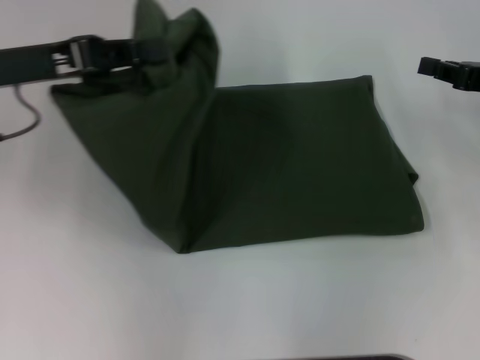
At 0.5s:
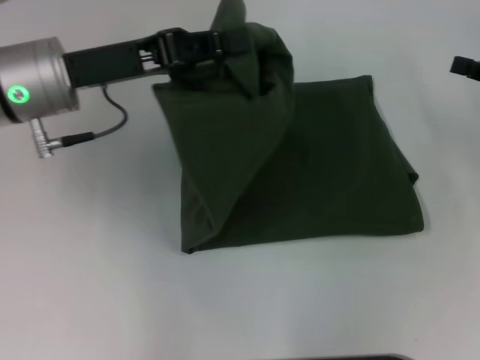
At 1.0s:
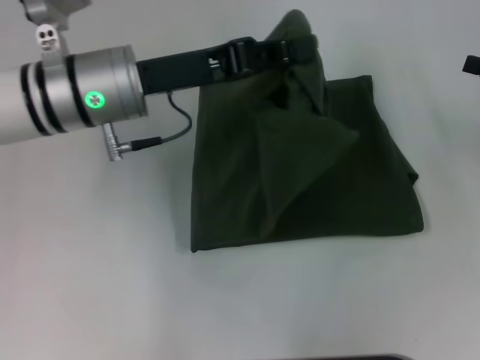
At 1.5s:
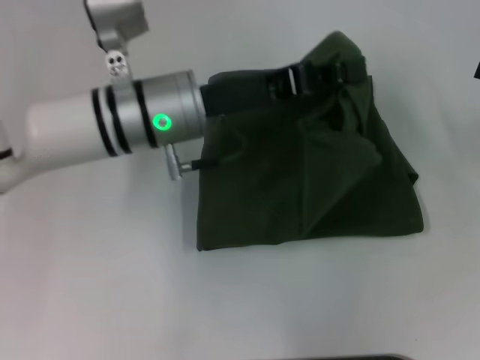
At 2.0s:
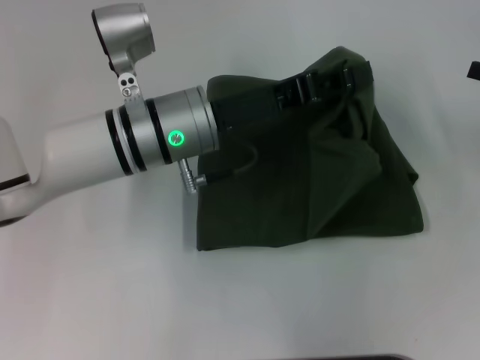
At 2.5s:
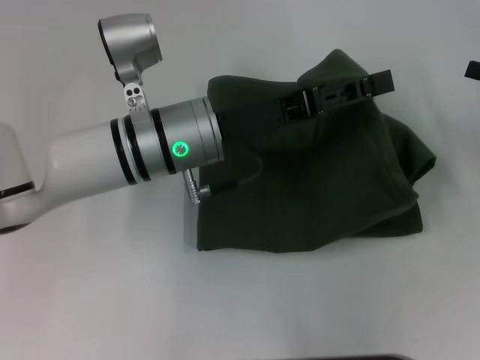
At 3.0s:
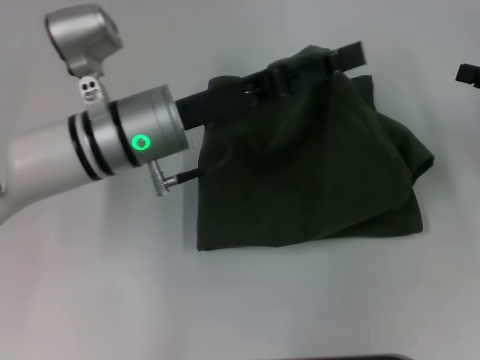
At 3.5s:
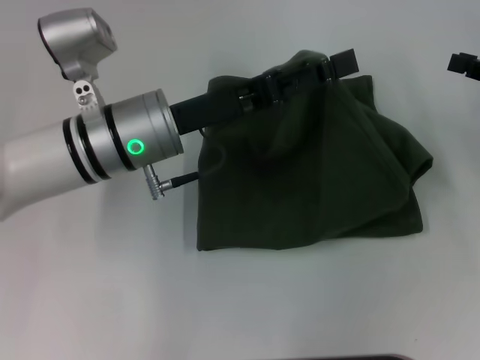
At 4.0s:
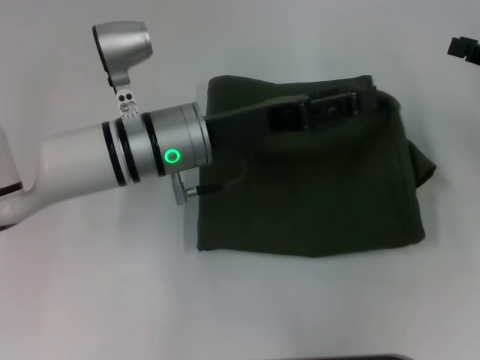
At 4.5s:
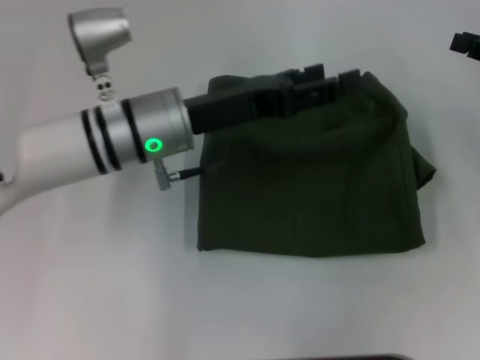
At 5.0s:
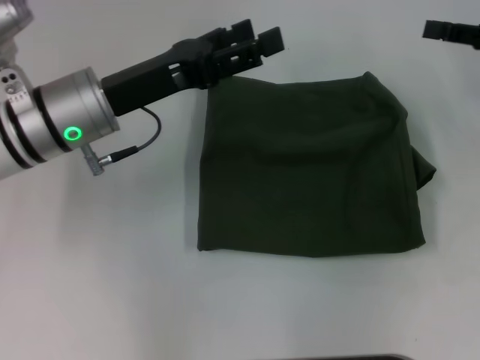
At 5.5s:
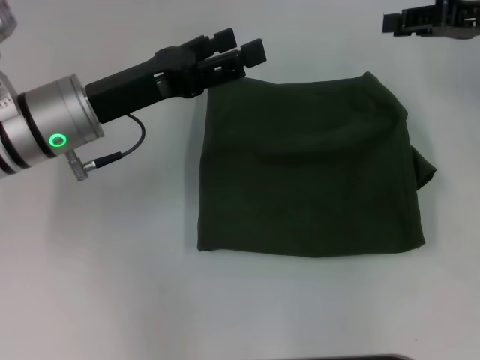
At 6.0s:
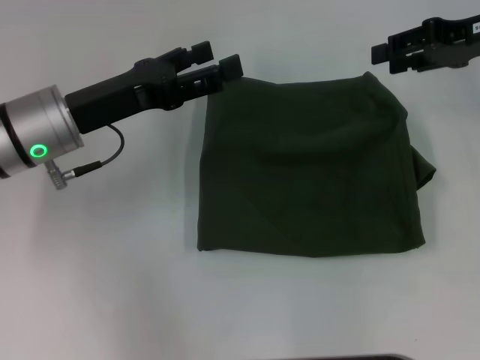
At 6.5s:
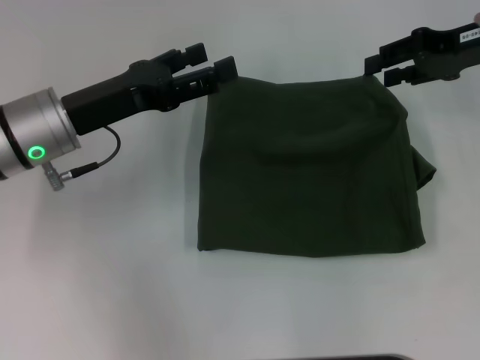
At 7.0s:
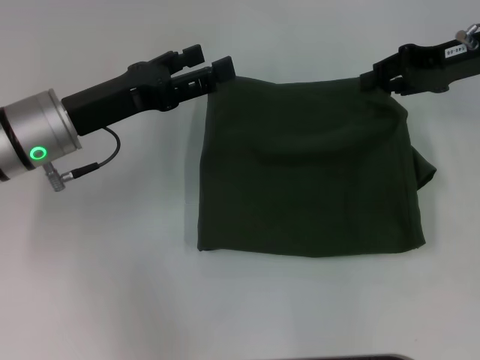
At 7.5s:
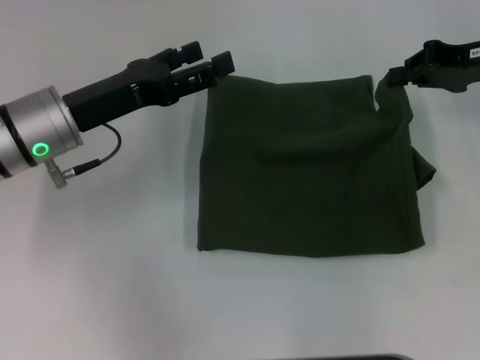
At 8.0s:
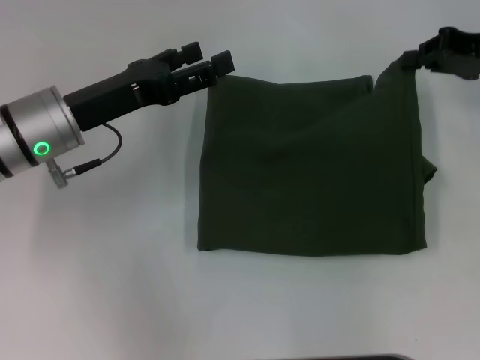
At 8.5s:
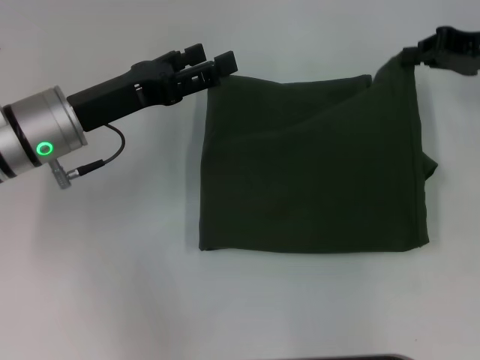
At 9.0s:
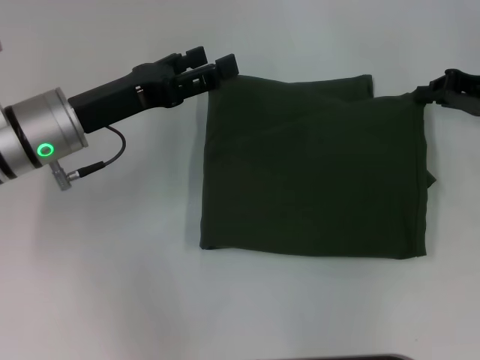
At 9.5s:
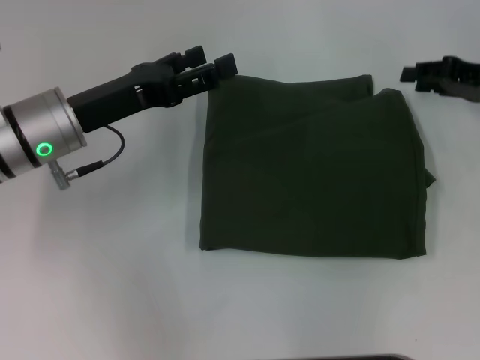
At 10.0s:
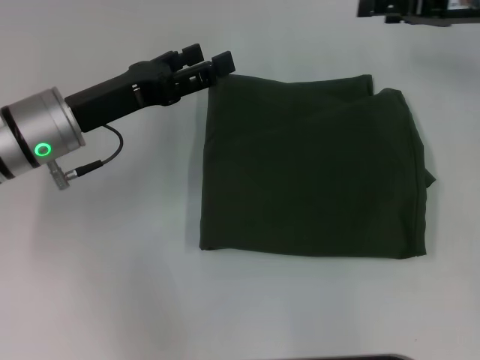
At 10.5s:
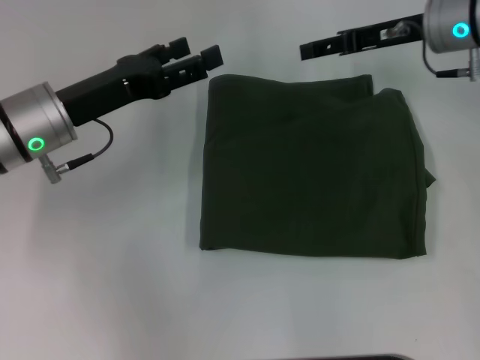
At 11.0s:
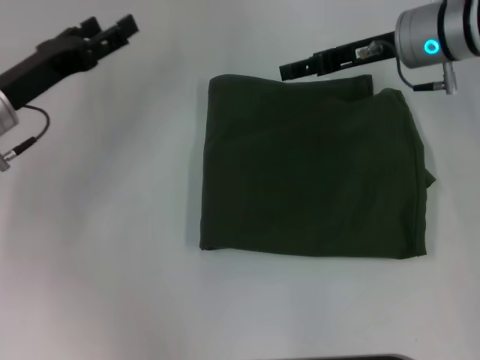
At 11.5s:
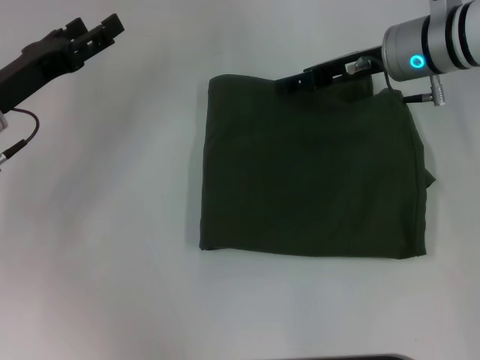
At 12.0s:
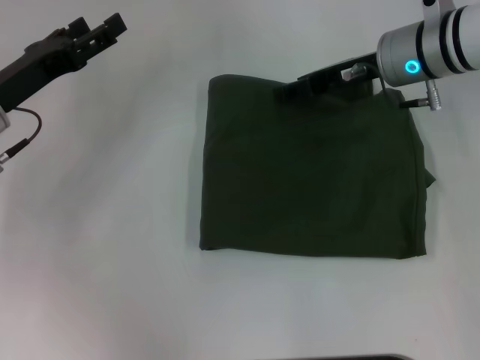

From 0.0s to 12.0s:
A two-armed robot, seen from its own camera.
From 0.0s to 2.0s: The left gripper is displaced to the right and downward by some 20 cm.
From 2.0s to 4.0s: The left gripper opens up.
From 4.0s to 6.0s: The right gripper goes about 10 cm forward, to the left and upward; the left gripper shifts roughly 10 cm to the left.
From 6.0s to 8.0s: The right gripper closes up.
From 8.0s to 10.0s: The right gripper opens up.
From 10.0s to 12.0s: The right gripper moves to the left, approximately 10 cm. Meanwhile the left gripper travels to the left by roughly 5 cm.

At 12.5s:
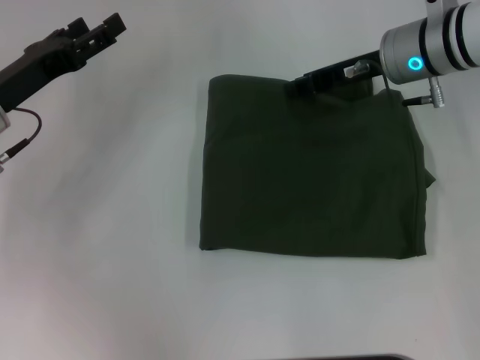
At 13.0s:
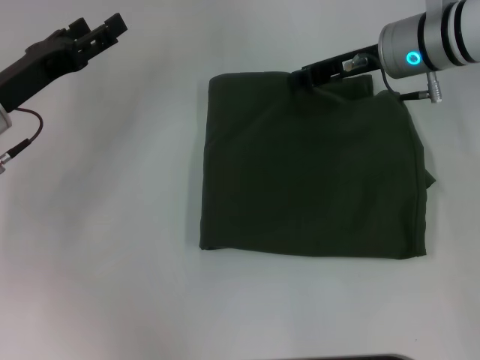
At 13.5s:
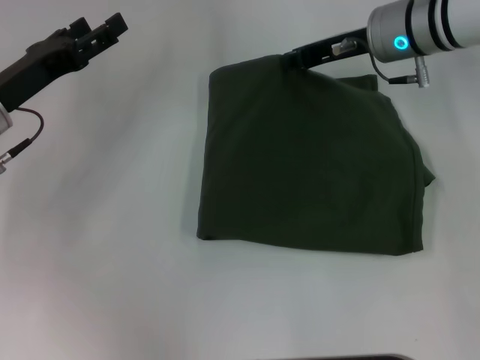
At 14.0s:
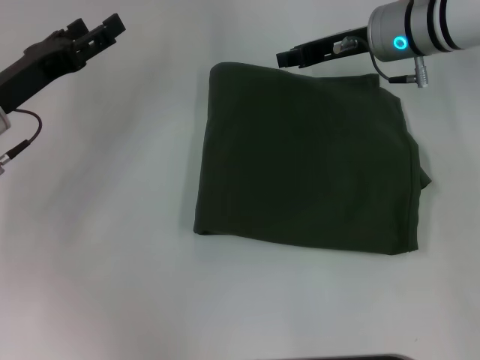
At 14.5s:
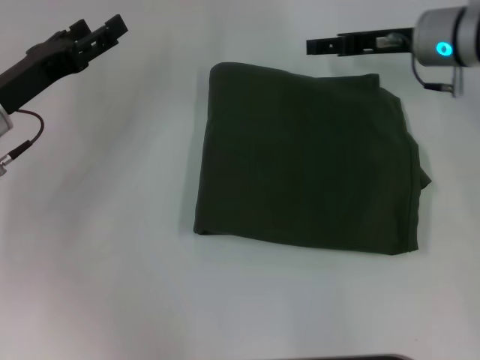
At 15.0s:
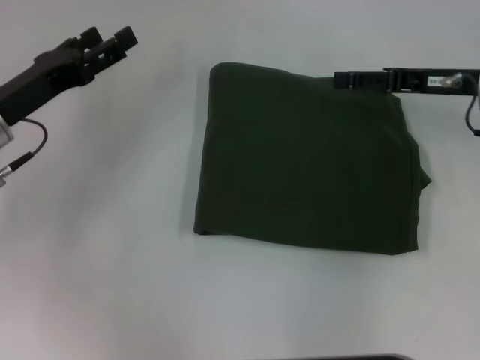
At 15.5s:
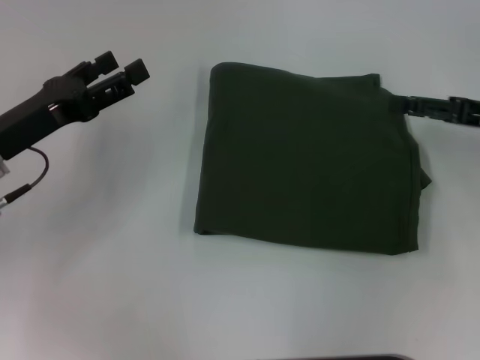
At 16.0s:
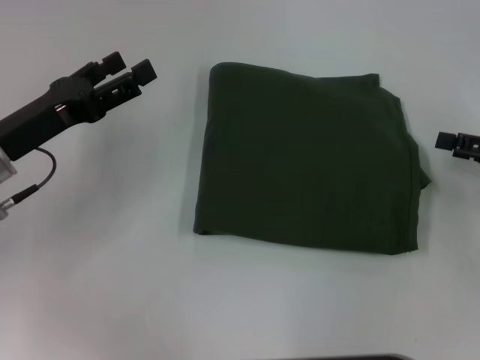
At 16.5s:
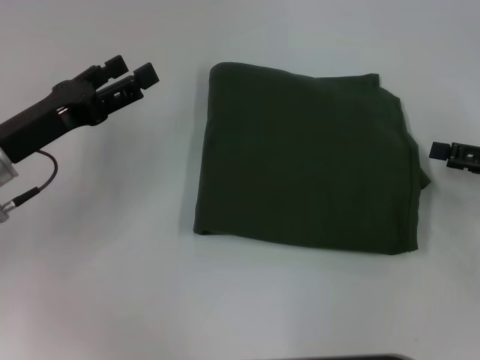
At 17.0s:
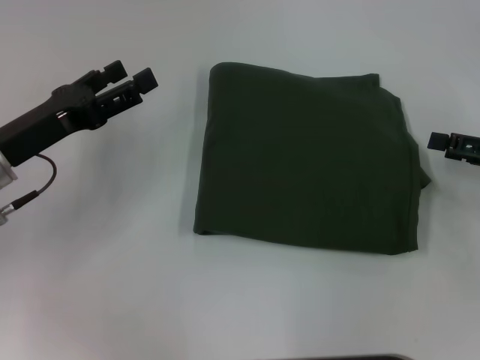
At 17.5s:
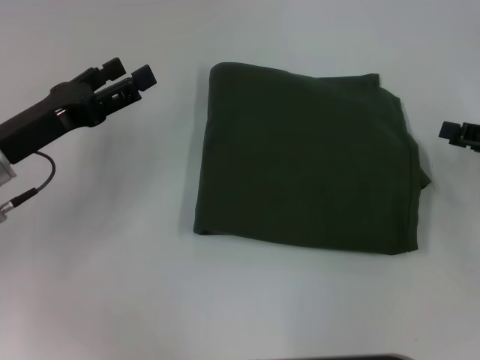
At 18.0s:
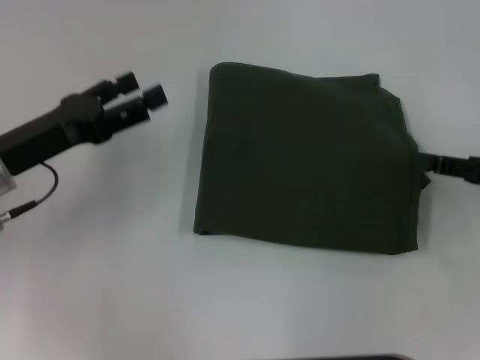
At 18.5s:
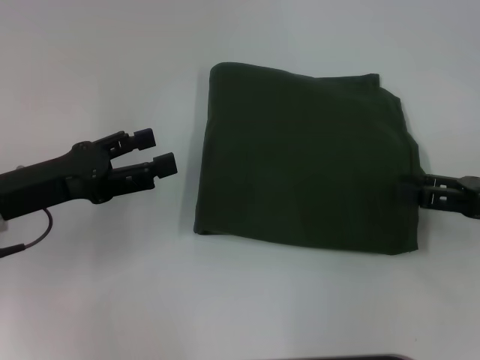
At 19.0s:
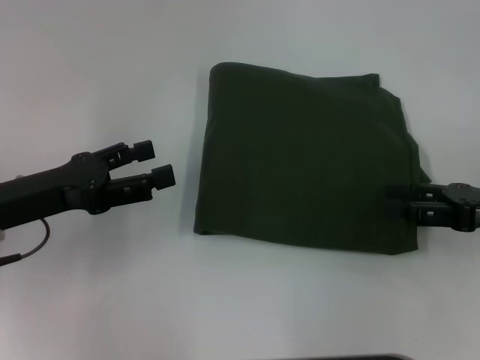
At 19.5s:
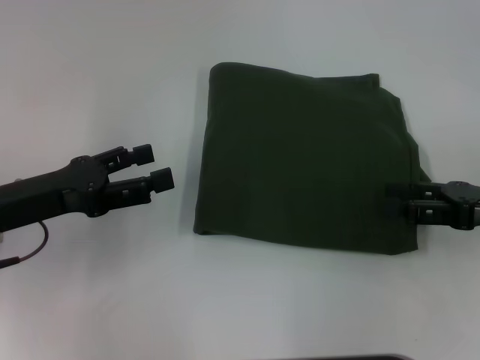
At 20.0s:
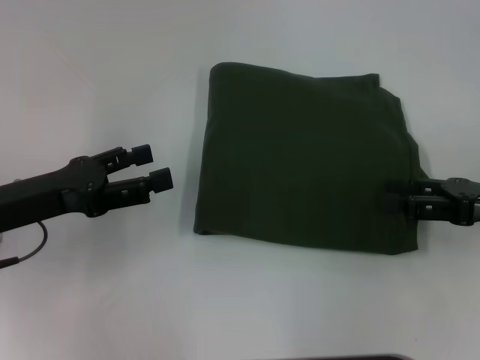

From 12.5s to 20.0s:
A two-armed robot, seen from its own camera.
Step, from 12.5s to 20.0s: Fold the clothes with your left hand.
From 12.5s to 14.5s: The right gripper closes, then opens again.
From 14.5s to 16.5s: The right gripper heads backward and to the right, covering some 20 cm.
From 16.5s to 18.0s: The right gripper closes its fingers.
From 18.0s to 20.0s: The right gripper opens its fingers.

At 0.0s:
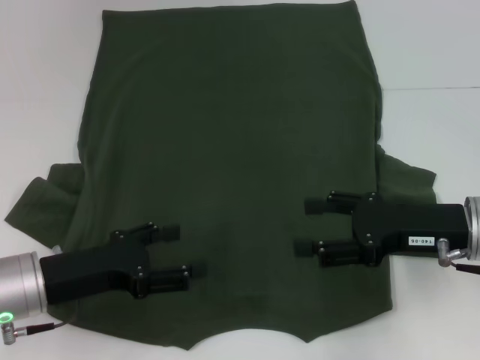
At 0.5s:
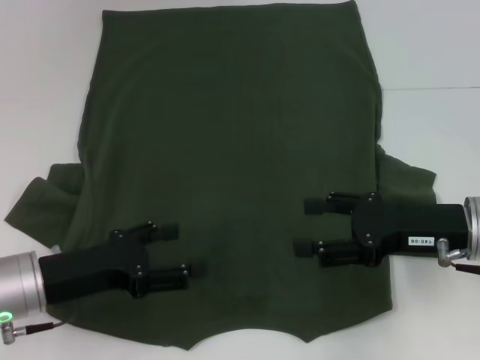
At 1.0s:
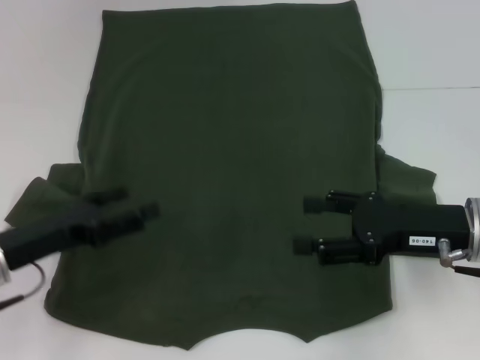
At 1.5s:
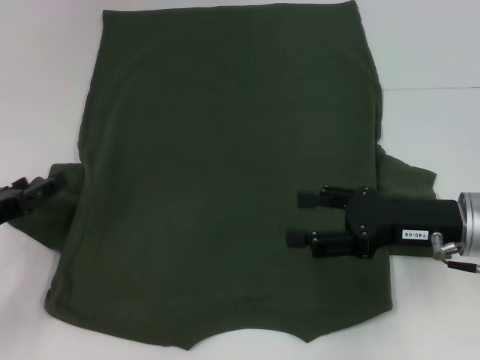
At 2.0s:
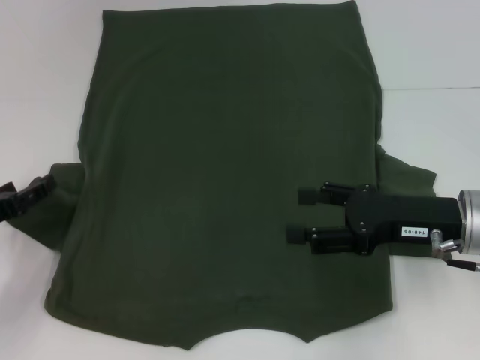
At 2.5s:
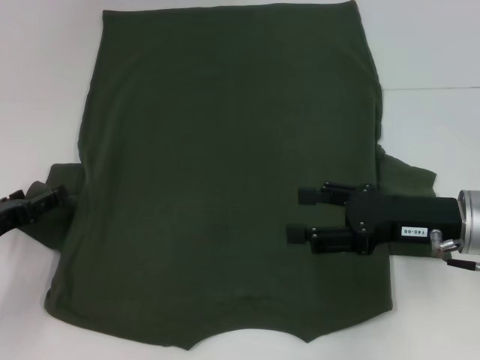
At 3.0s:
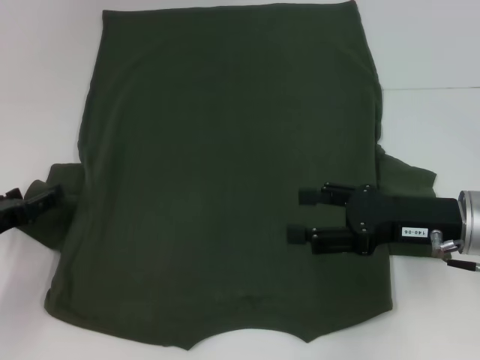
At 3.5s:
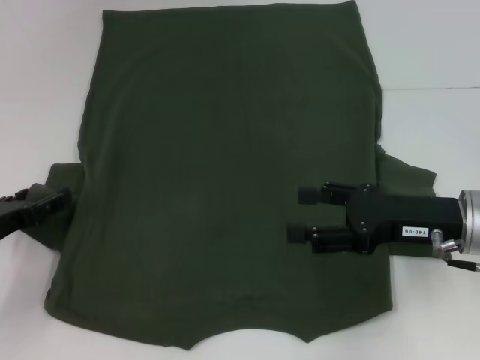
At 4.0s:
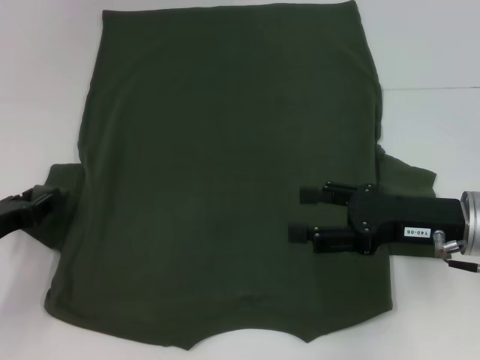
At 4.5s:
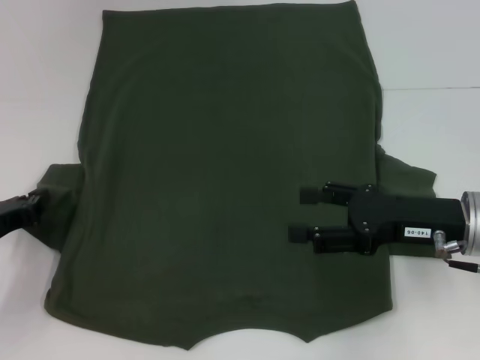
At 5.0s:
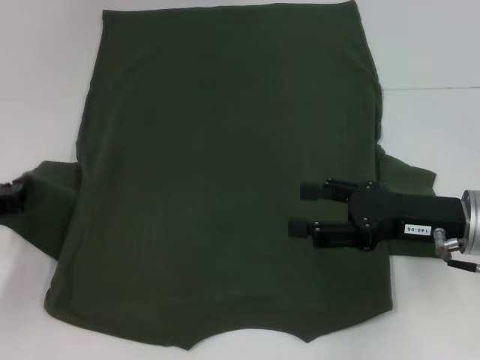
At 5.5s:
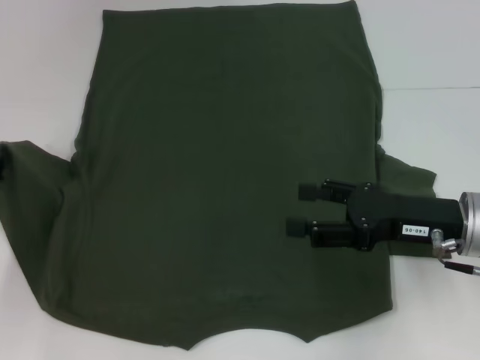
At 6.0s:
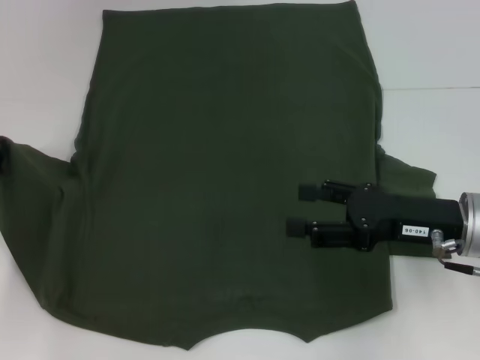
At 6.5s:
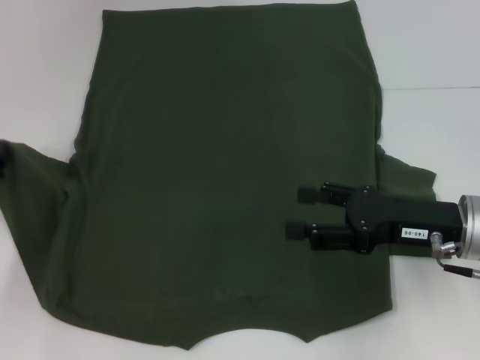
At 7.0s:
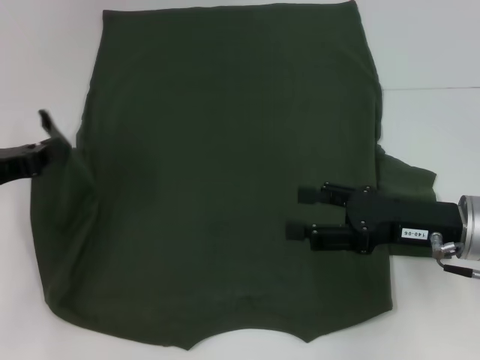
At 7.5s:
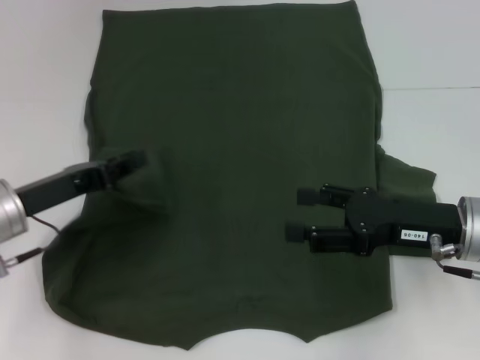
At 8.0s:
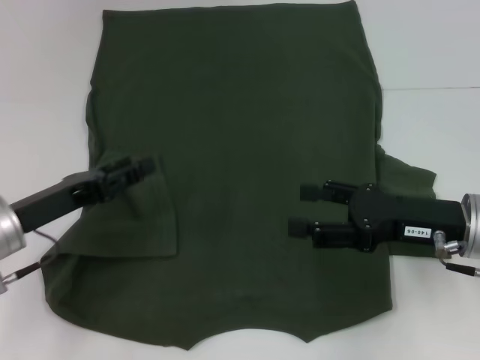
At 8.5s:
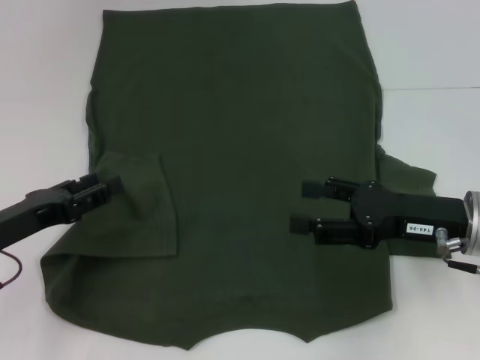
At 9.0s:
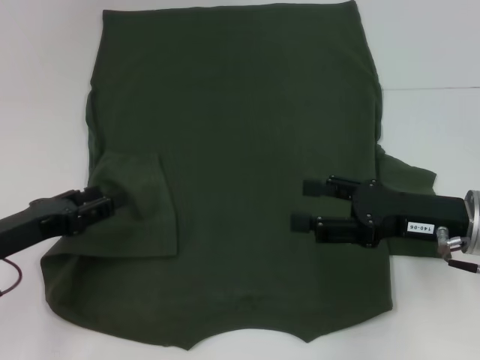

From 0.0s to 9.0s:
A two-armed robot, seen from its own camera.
Step, from 0.0s to 7.5s: Fold the bottom left sleeve with your left hand.
From 0.0s to 2.0s: The left gripper shifts about 10 cm to the left.
From 2.0s to 4.5s: The left gripper closes up.
From 4.5s to 7.0s: The left gripper heads upward, covering approximately 5 cm.
From 7.0s to 9.0s: The left gripper changes place by roughly 5 cm, and opens.
